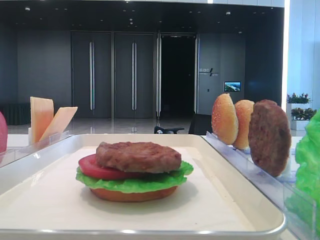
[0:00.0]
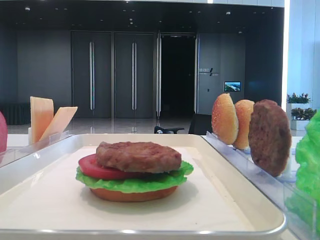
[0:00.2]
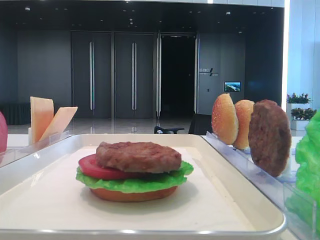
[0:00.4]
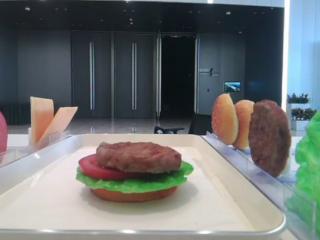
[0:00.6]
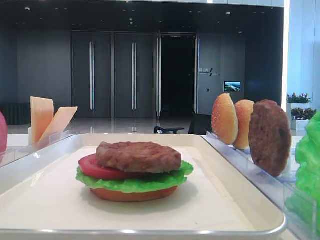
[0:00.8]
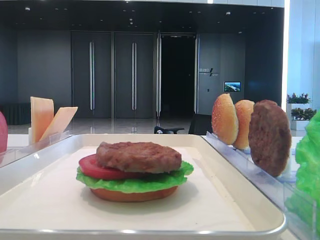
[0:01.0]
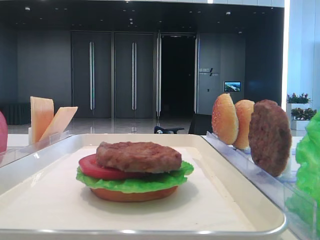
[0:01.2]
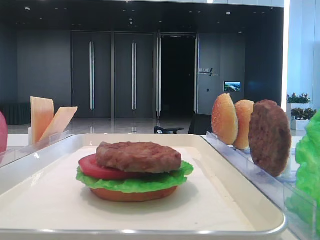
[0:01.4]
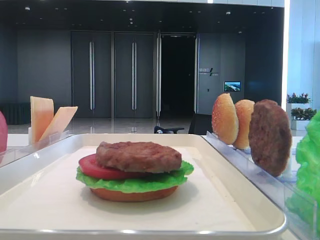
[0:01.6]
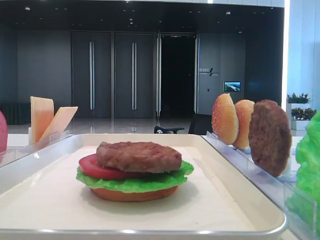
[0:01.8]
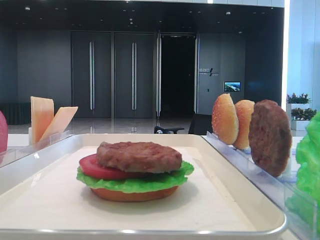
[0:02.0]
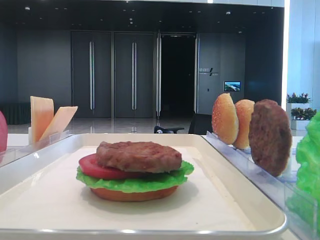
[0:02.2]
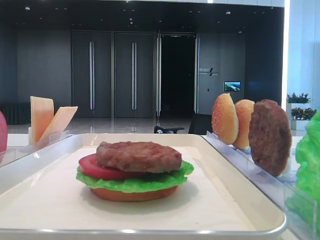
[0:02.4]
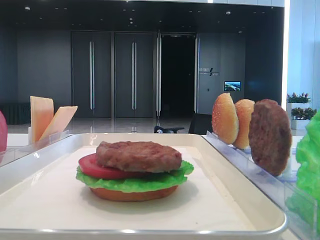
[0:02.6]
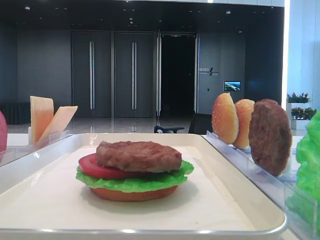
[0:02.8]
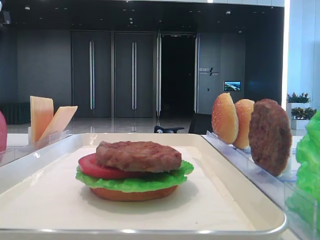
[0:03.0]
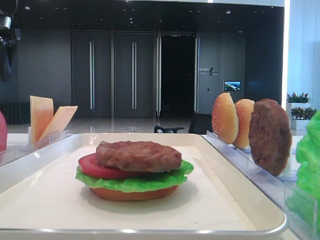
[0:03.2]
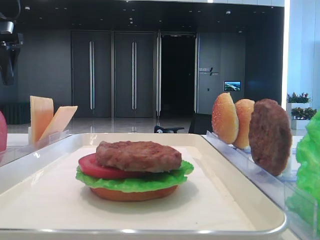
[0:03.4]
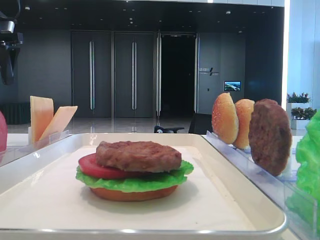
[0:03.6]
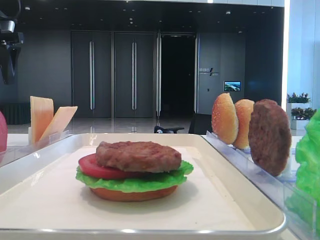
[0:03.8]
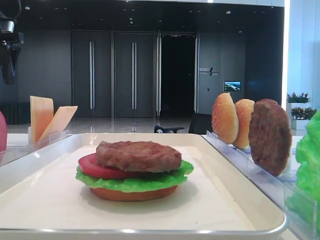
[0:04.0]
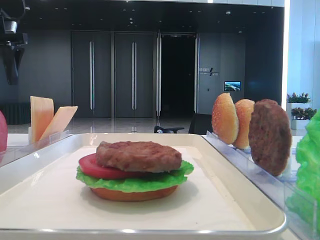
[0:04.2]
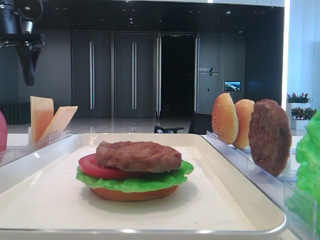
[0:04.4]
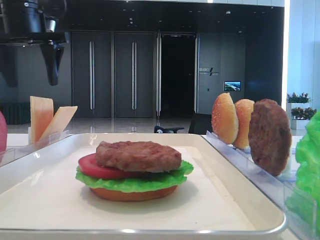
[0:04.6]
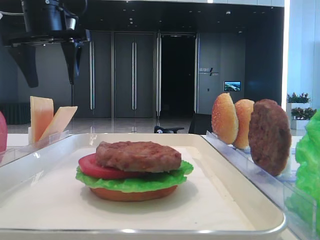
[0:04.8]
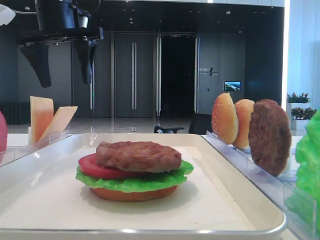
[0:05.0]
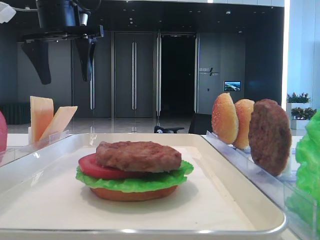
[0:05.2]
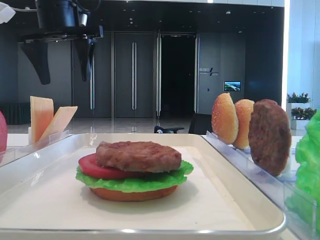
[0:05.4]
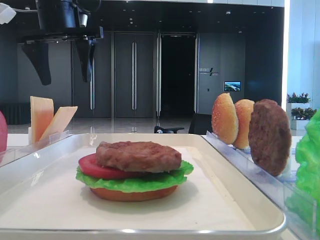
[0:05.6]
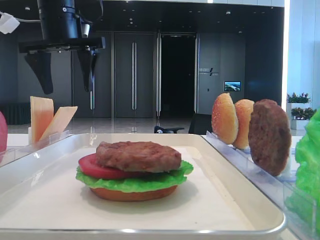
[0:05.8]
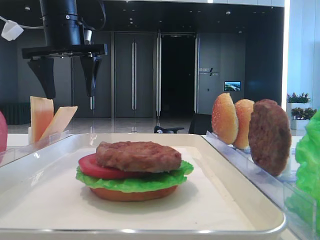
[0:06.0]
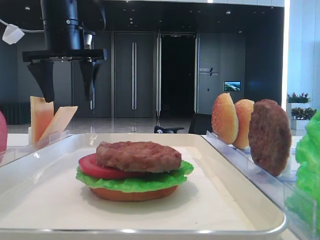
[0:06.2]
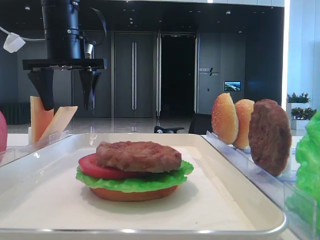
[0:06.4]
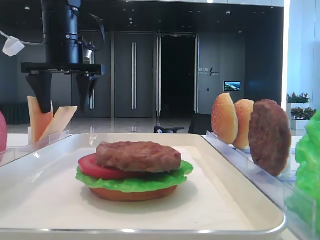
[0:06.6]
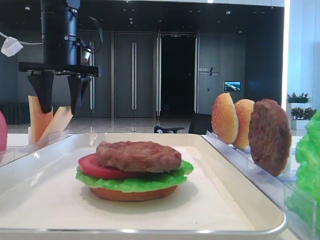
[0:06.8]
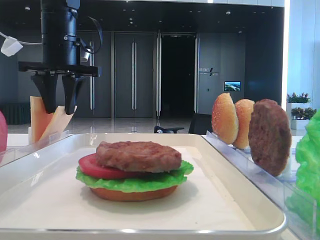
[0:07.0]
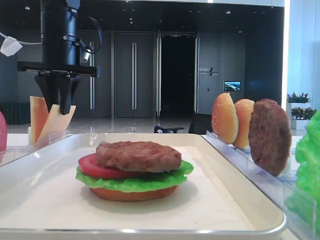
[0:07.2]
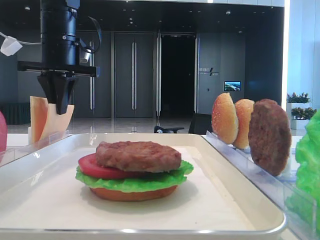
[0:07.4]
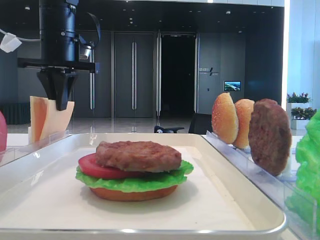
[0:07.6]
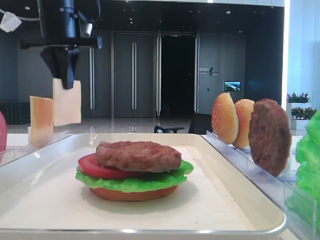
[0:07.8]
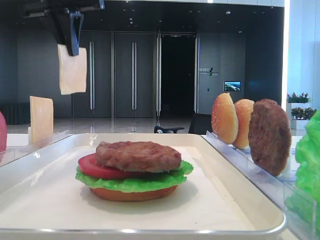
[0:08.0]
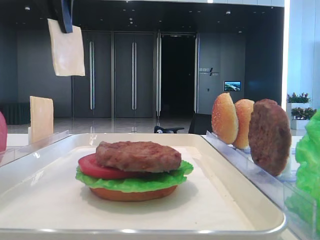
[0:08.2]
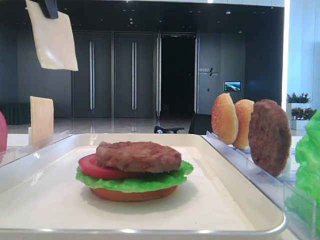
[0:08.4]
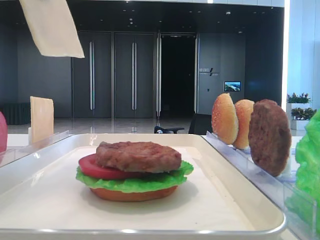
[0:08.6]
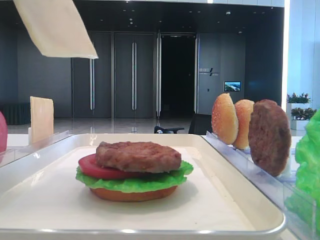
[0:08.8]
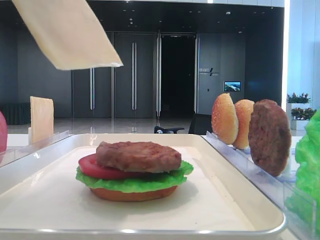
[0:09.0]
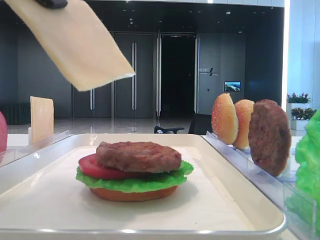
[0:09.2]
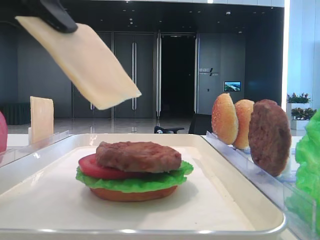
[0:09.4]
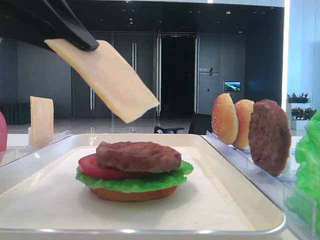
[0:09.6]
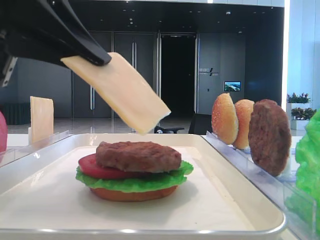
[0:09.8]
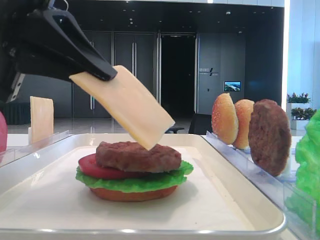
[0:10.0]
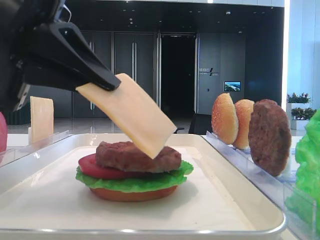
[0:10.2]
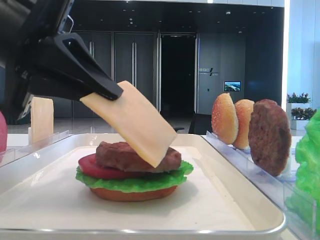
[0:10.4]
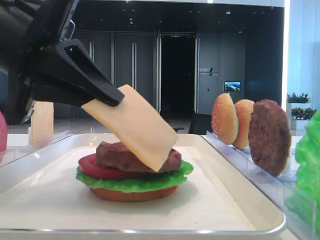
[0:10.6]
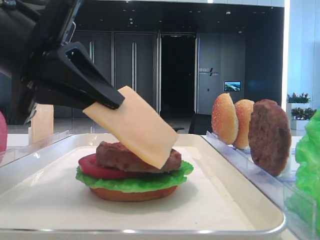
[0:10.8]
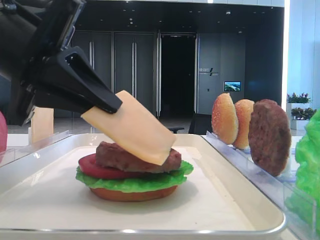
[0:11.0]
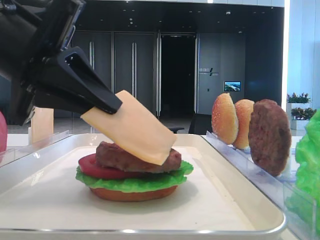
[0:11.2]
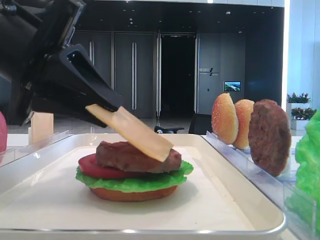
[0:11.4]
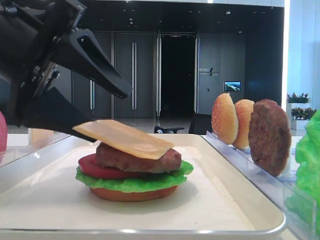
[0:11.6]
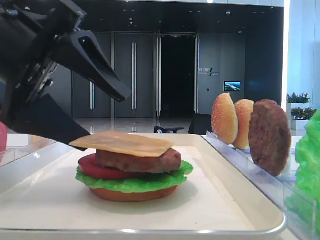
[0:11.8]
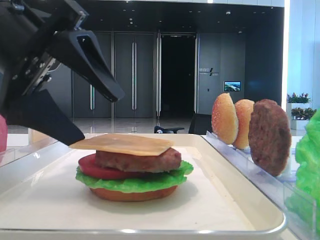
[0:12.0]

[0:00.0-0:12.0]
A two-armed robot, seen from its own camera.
Step, 0:00.0 to 0:07.2: Pick up the cheese slice with the left hand.
Step, 0:07.6 to 0:11.8: Place the cheese slice on the patty with the left hand.
0:01.6 to 0:03.0: The left gripper travels forward by about 35 cm.
0:03.0 to 0:04.4: The left gripper ends up about 5 cm from where it was.
0:04.4 to 0:06.0: The left gripper moves to the right, roughly 10 cm.
0:06.0 to 0:07.6: The left gripper closes its fingers.
0:07.6 to 0:09.0: The left gripper moves backward, roughly 25 cm.
0:09.0 to 0:10.4: The left gripper travels downward by about 10 cm.
0:10.4 to 0:12.0: The left gripper opens up.

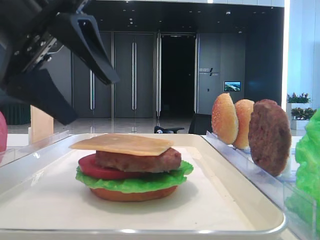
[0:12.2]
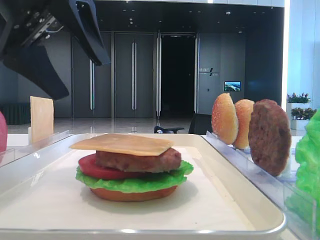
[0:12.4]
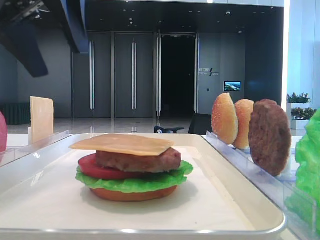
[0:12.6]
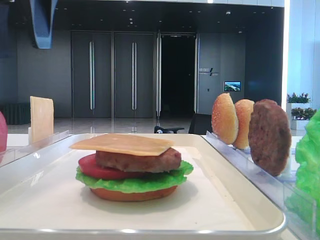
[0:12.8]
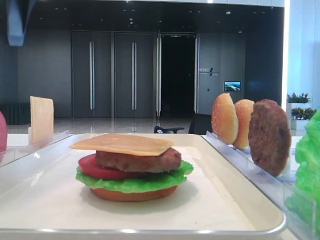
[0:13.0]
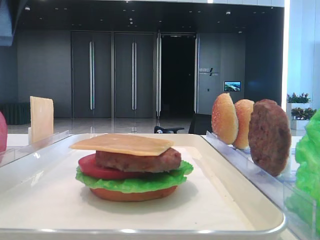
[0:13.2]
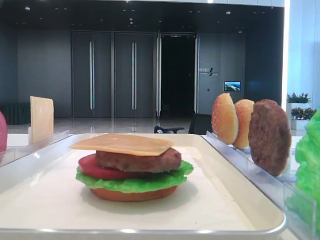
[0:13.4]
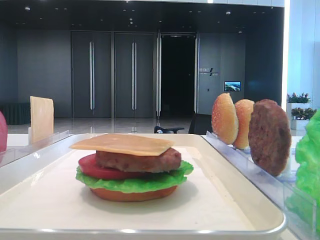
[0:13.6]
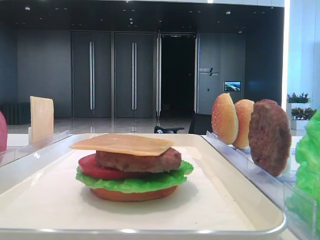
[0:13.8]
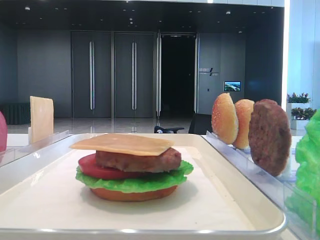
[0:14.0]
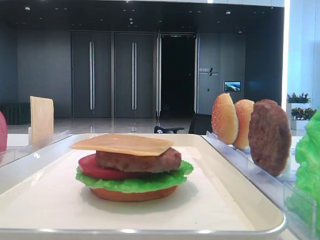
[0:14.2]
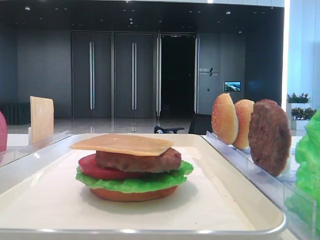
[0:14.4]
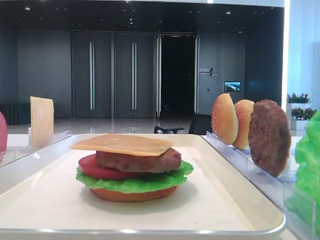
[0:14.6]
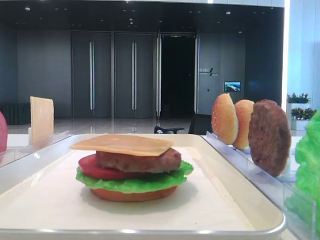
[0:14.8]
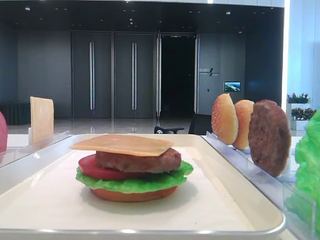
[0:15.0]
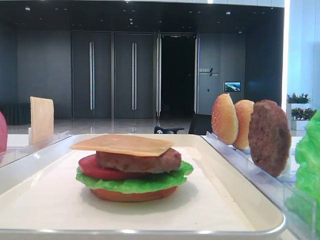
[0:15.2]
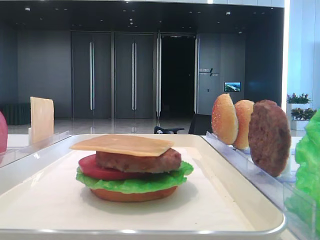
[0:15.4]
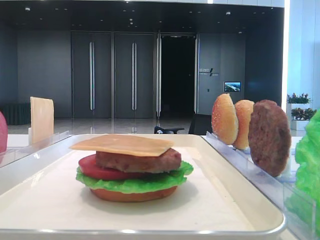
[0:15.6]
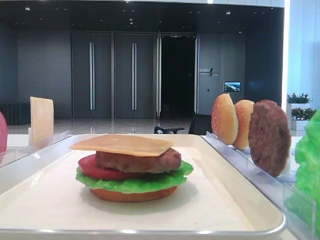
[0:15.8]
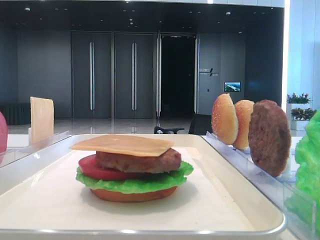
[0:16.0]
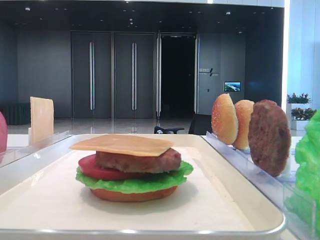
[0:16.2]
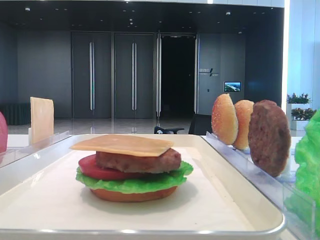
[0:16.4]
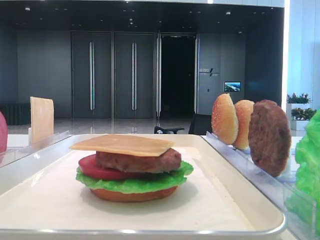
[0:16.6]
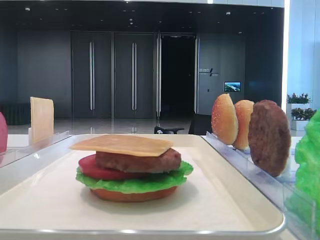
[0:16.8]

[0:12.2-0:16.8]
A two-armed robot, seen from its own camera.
0:12.2 to 0:13.8: The left gripper heads to the left and upward, covering roughly 20 cm.

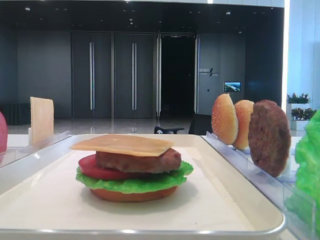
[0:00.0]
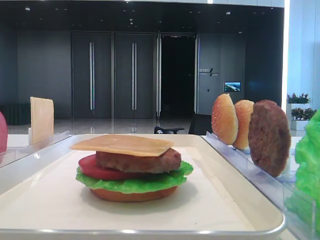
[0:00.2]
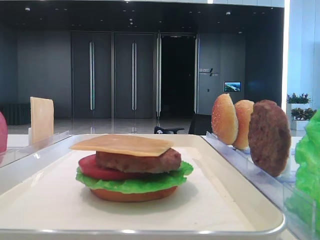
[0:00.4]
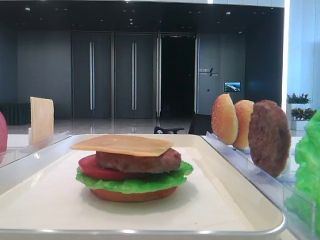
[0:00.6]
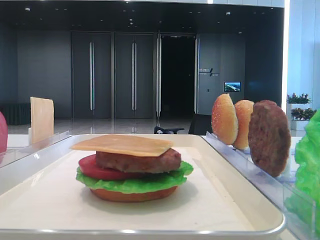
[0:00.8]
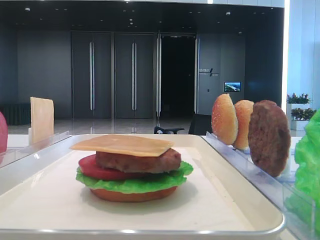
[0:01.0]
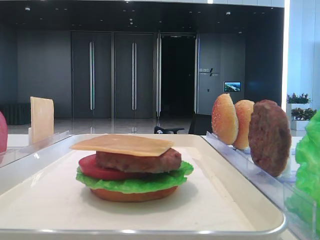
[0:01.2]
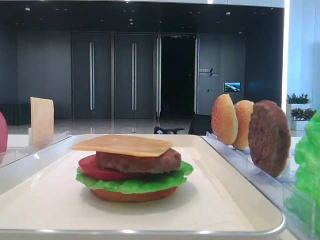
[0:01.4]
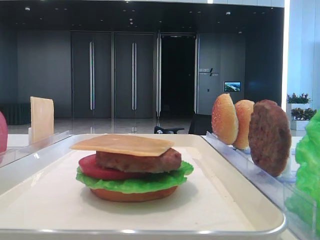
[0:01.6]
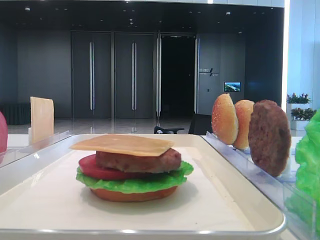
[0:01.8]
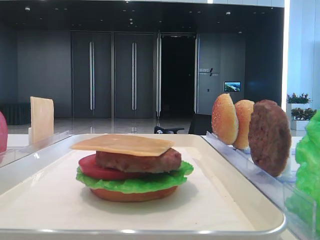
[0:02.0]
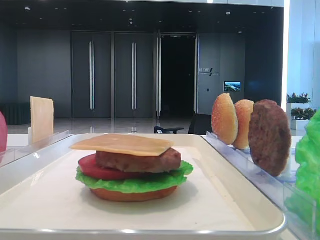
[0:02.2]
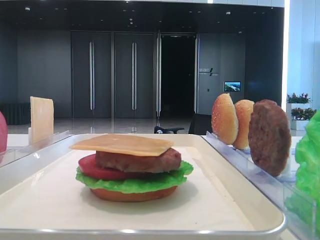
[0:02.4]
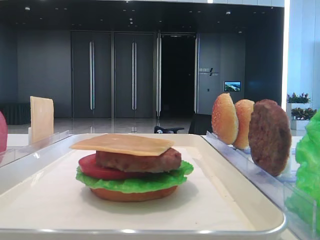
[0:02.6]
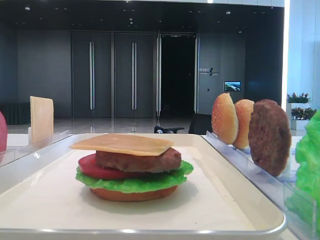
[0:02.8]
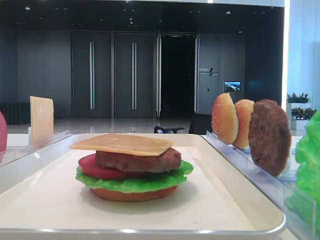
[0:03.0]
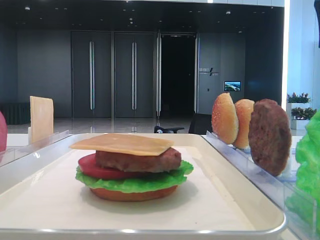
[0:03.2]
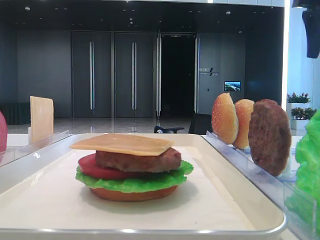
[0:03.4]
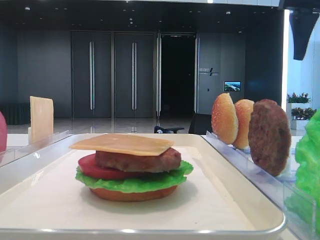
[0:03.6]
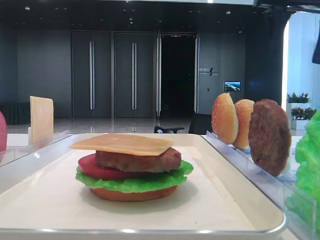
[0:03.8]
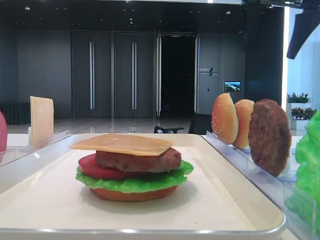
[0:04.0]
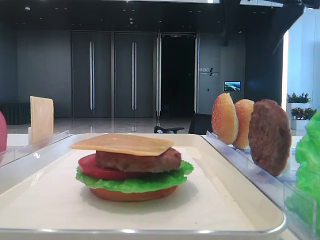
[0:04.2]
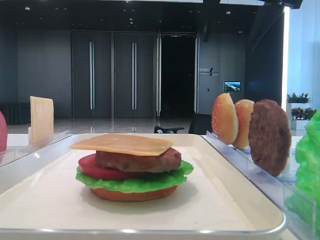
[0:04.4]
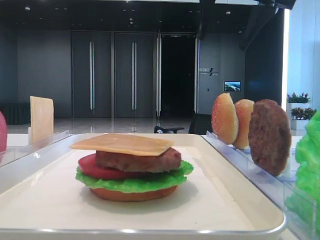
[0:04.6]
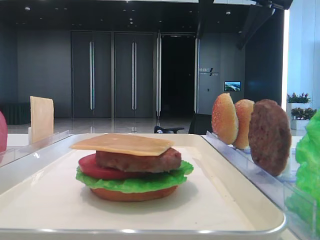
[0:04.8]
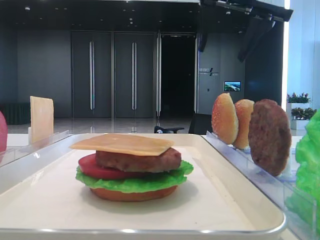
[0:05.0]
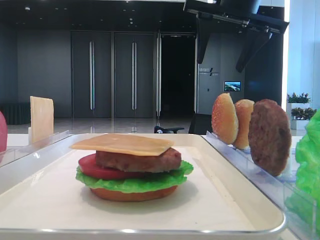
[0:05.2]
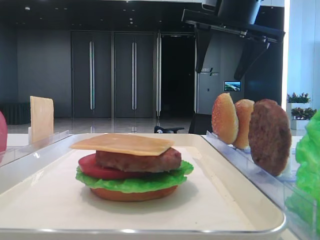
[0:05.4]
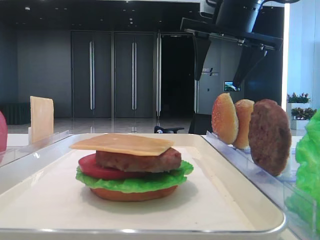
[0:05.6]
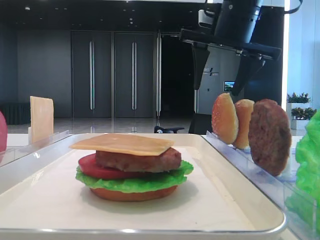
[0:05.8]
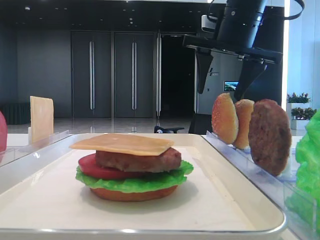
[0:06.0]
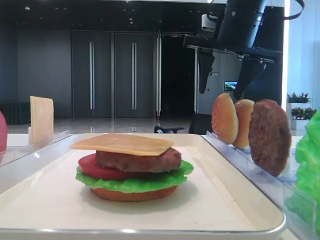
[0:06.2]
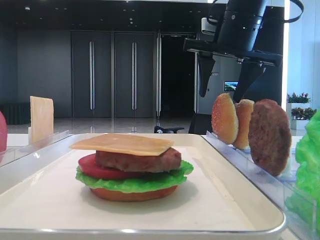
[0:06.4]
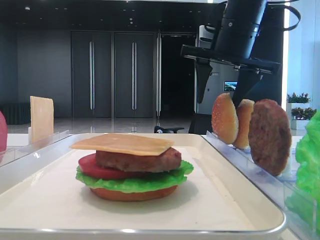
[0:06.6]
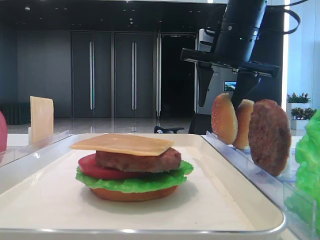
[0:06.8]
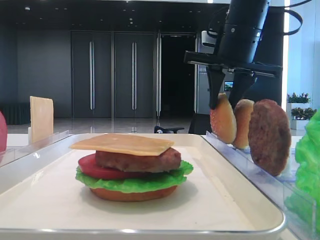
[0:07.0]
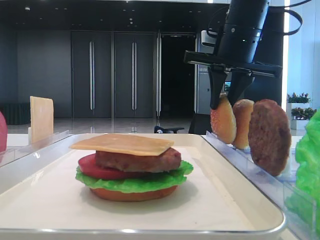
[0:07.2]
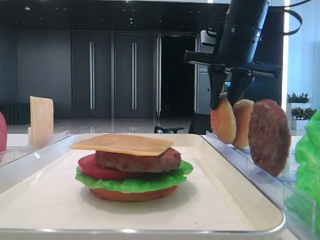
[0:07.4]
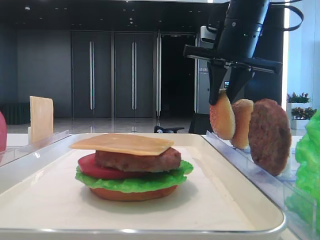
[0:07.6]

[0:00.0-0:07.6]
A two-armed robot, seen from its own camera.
Step, 0:00.0 to 0:07.4: Pick up the top bread slice with the right hand.
0:04.6 to 0:06.0: The right gripper moves downward, some 10 cm.
0:06.0 to 0:07.6: The right gripper closes up.
